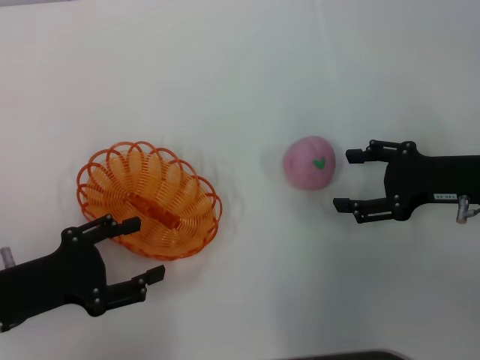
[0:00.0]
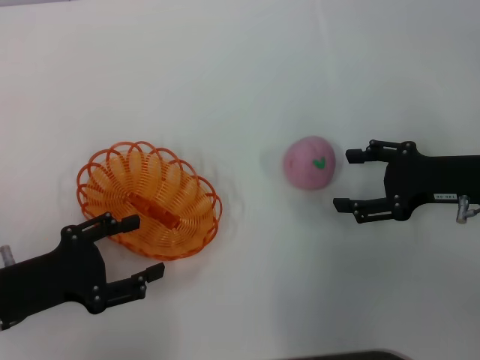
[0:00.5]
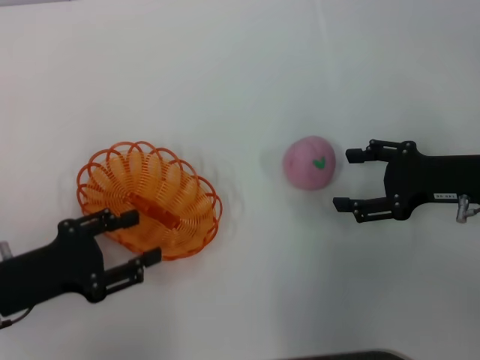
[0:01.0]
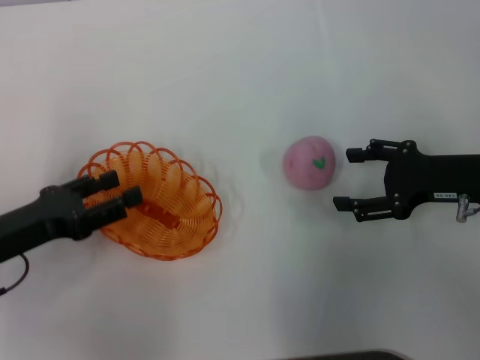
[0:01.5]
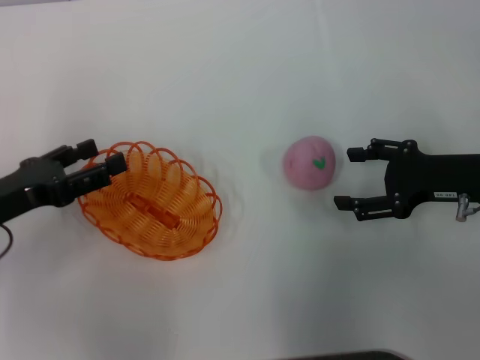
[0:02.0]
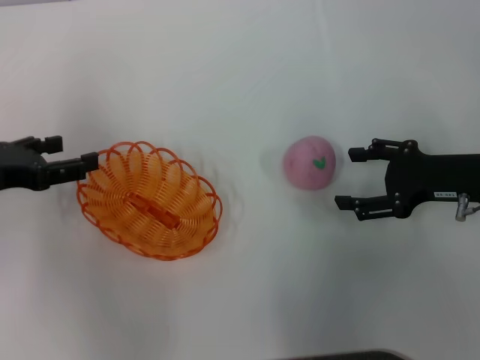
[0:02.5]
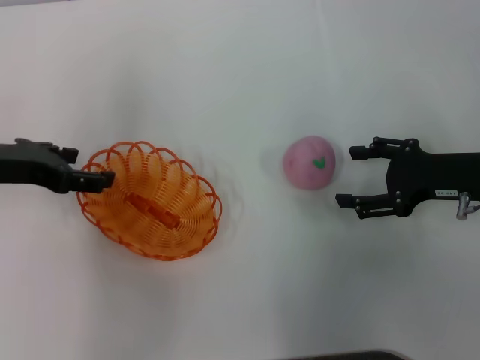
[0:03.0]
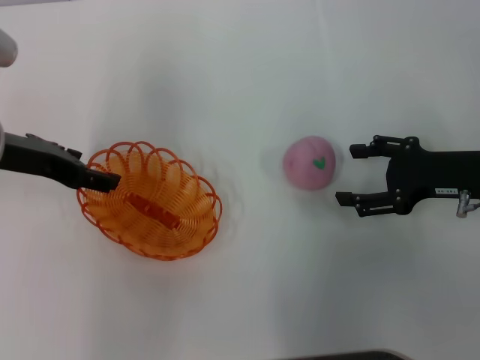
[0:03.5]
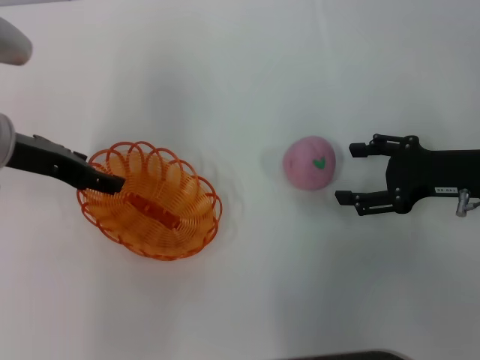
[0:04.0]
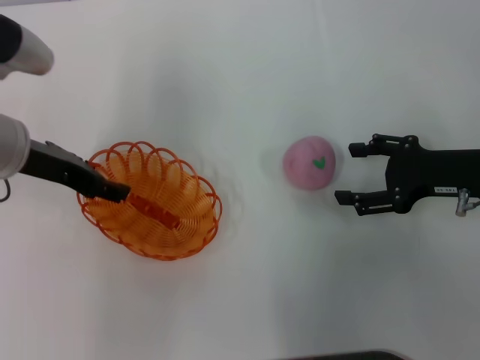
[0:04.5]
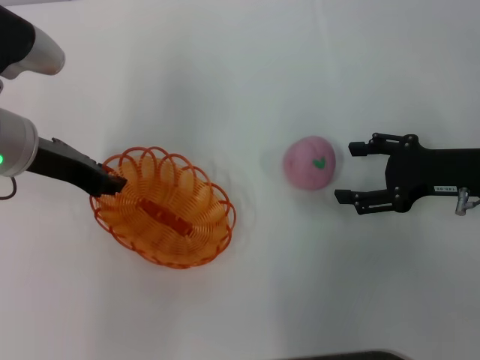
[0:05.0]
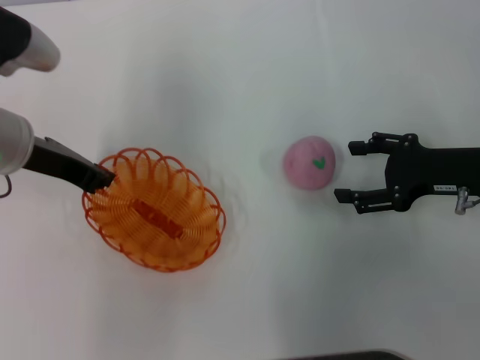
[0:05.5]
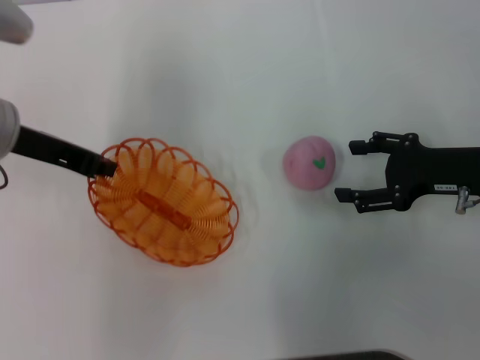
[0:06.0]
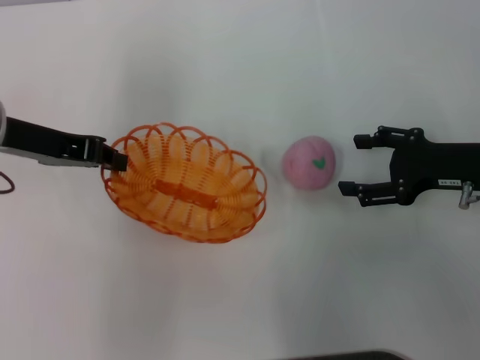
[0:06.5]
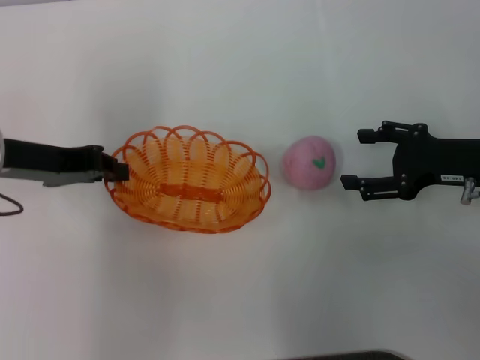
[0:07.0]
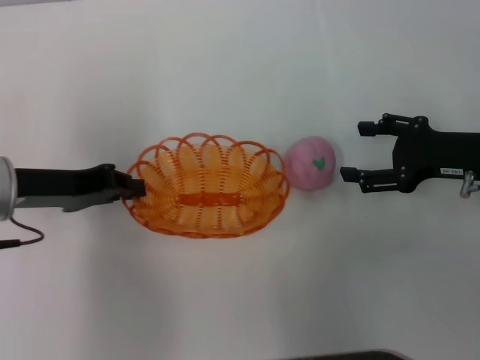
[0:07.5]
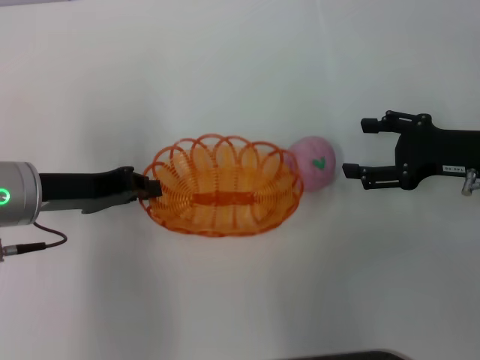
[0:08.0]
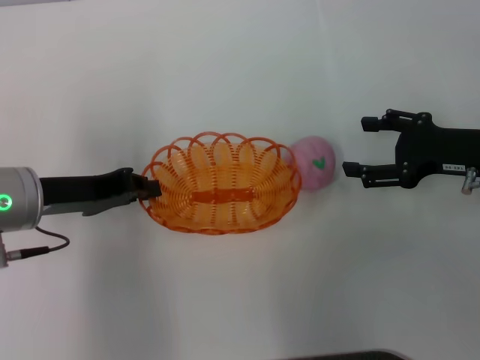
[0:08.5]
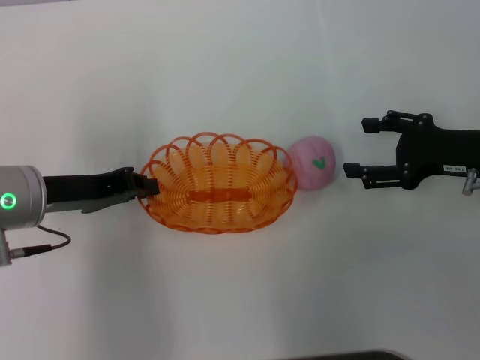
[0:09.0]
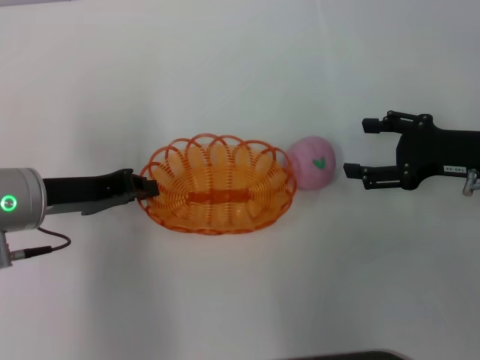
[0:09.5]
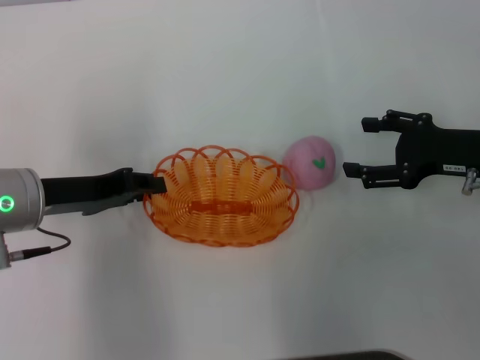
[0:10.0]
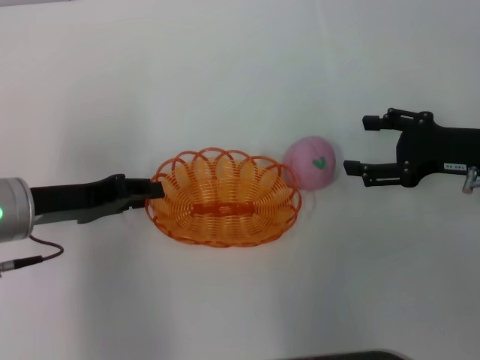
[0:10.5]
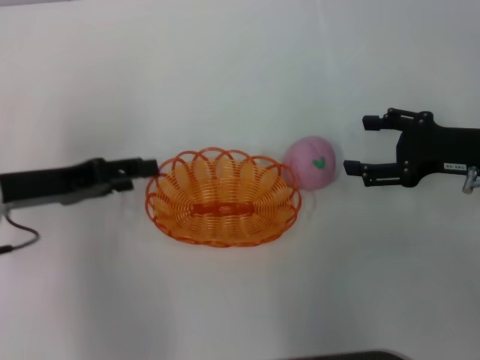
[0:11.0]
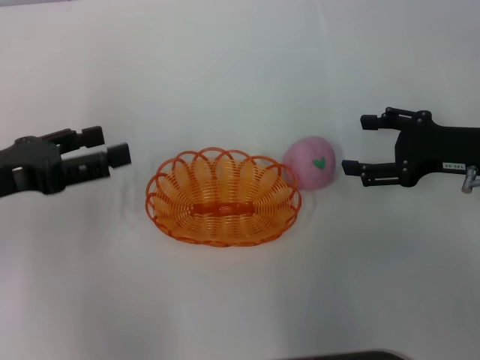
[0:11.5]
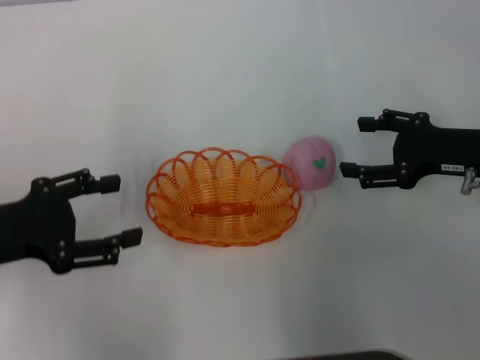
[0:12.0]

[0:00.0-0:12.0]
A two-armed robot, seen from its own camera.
Step, 0:00.0 to 0:06.5: Pick up the basket with the left gripper.
Step, 0:07.0 to 0:11.0: Place the basket in the center of view with the left gripper.
0:00.0 to 0:02.0: The left gripper heads forward, covering approximately 5 cm.
0:02.0 to 0:04.0: The left gripper shifts about 10 cm forward, upward and to the right.
0:04.0 to 0:06.0: The left gripper closes its fingers.
0:06.0 to 0:08.0: The left gripper goes about 5 cm backward.
0:08.0 to 0:10.0: Neither gripper changes place.
0:10.0 to 0:12.0: The left gripper travels to the left by roughly 5 cm, and opens up.

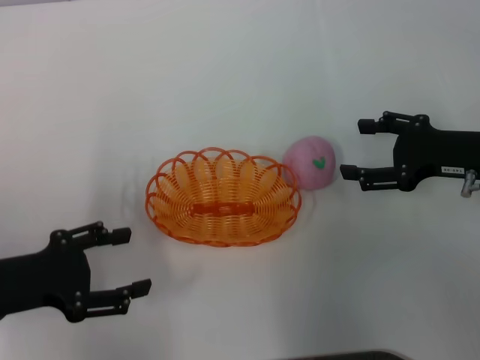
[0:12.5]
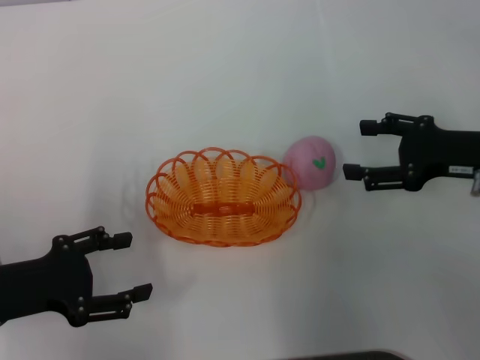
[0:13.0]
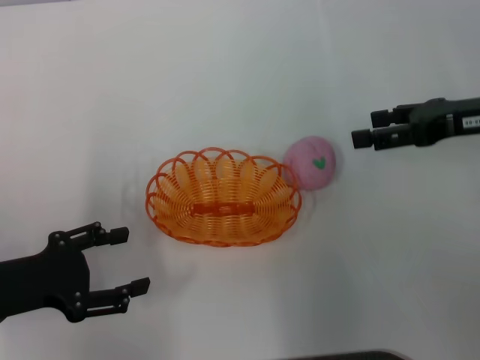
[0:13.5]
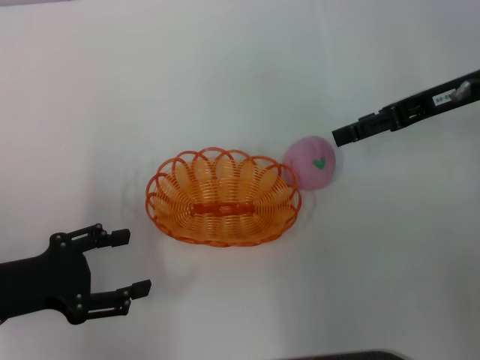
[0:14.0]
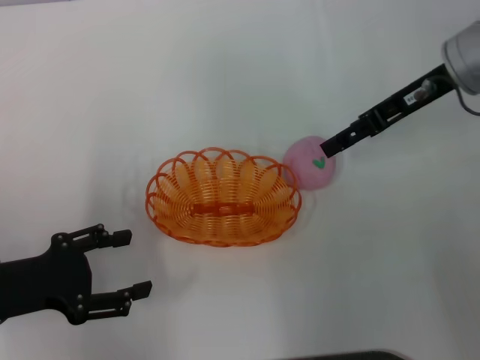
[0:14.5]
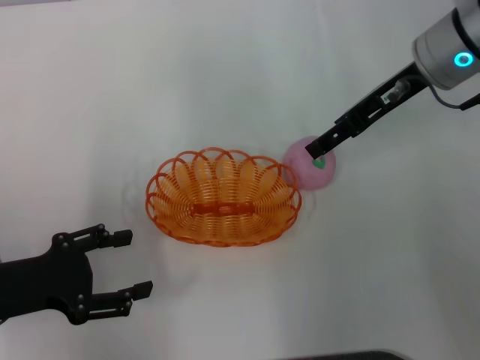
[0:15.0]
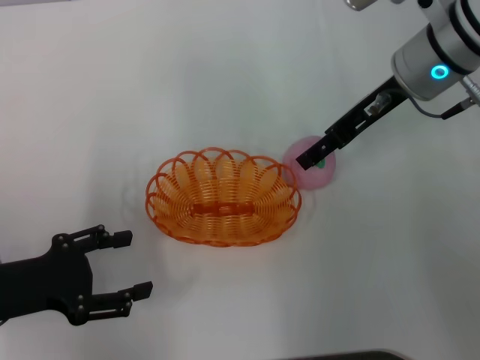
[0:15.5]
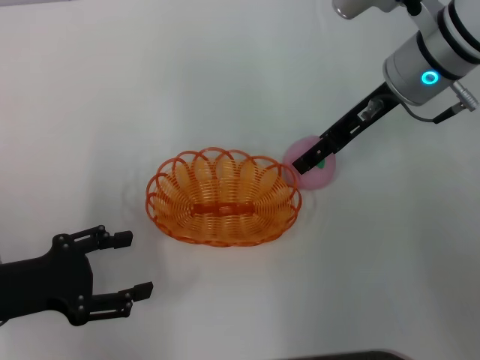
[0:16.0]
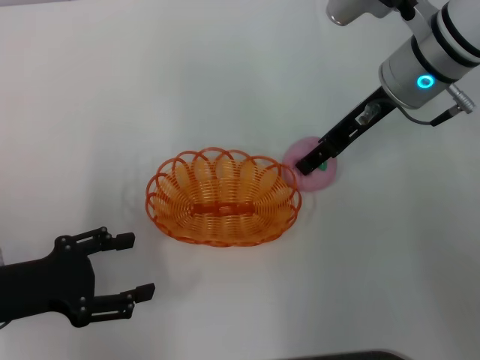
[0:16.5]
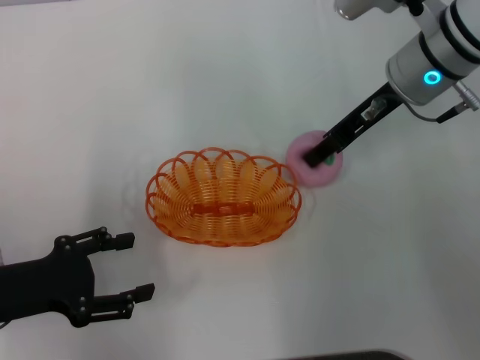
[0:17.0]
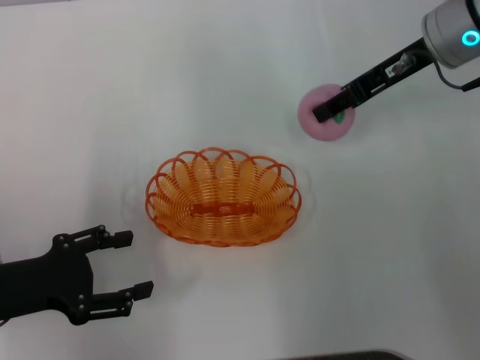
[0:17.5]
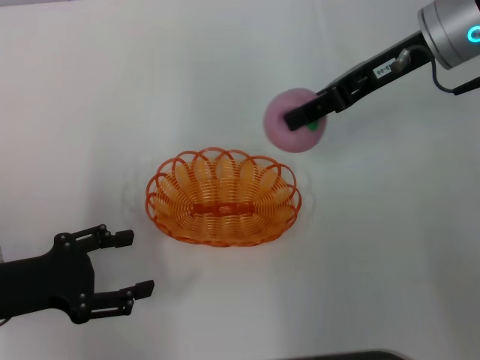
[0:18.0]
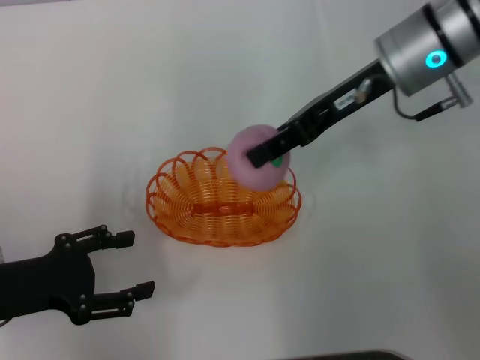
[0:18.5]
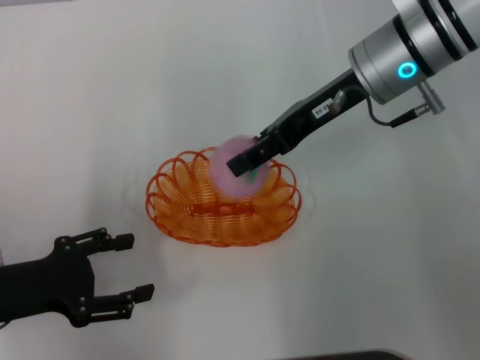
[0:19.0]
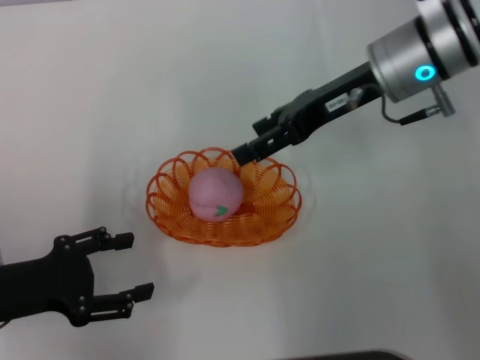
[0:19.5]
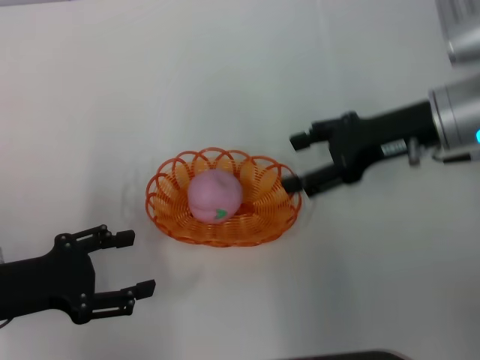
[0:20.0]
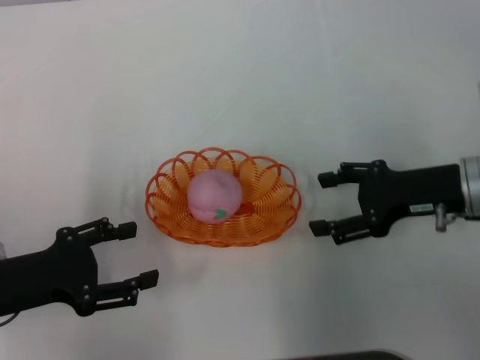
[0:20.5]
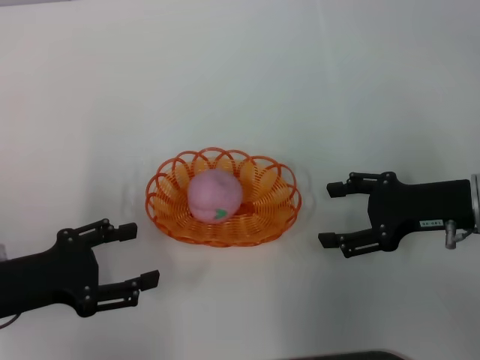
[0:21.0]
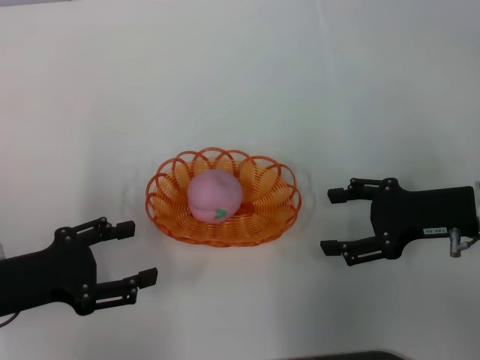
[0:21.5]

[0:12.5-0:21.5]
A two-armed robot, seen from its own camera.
Step, 0:12.5 to 0:17.5: Pick up the peach with the right gripper.
Step, 0:18.0 to 0:19.5: Place the peach into the basket with the right gripper.
0:12.5 to 0:14.5: The right gripper goes some 15 cm upward, forward and to the left.
0:14.5 to 0:17.0: The right gripper shifts by approximately 5 cm, and closes.
0:17.0 to 0:19.5: The right gripper opens its fingers.
0:19.5 to 0:21.5: The right gripper moves backward, to the right and downward, some 20 cm.
